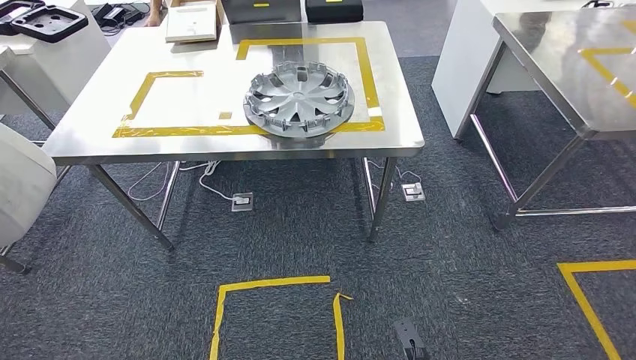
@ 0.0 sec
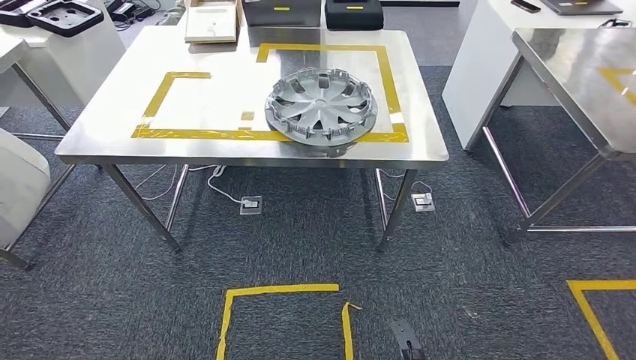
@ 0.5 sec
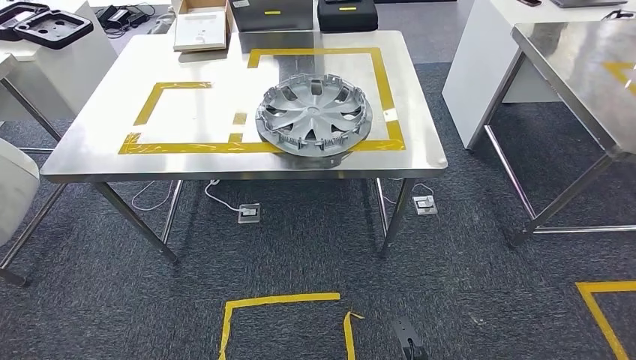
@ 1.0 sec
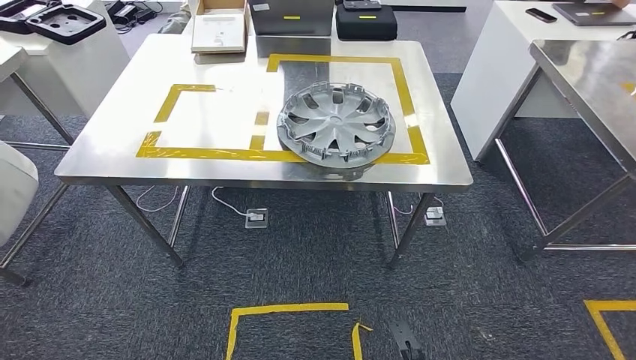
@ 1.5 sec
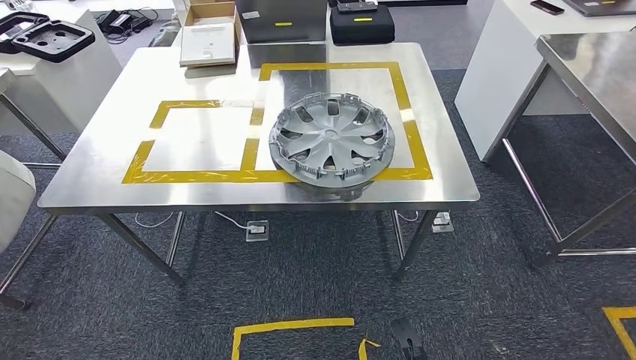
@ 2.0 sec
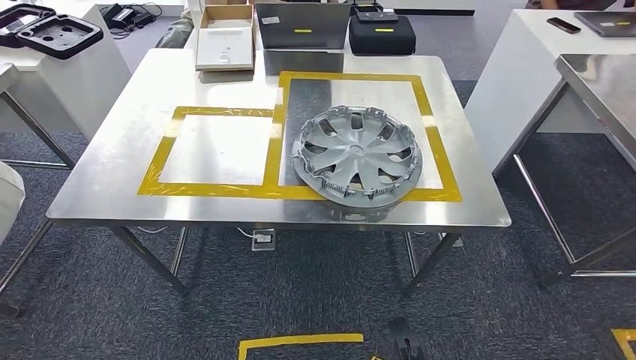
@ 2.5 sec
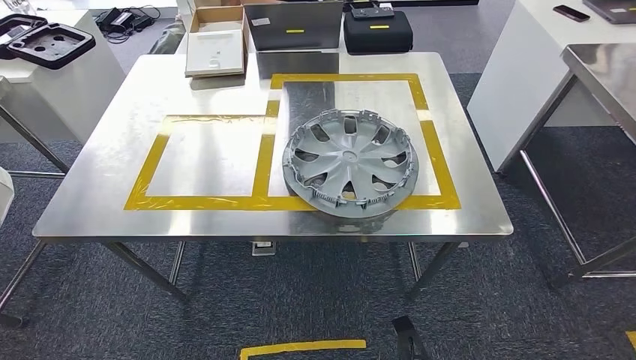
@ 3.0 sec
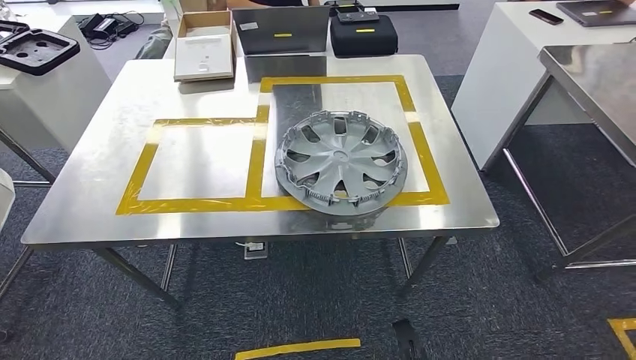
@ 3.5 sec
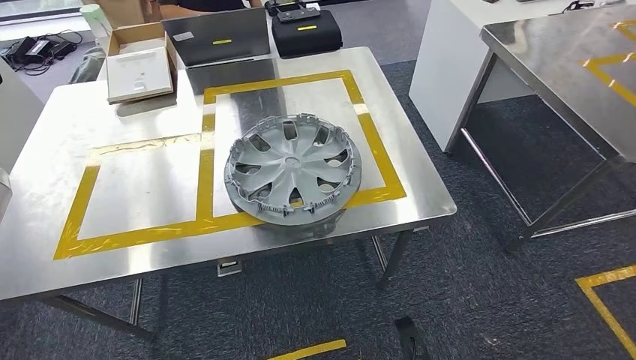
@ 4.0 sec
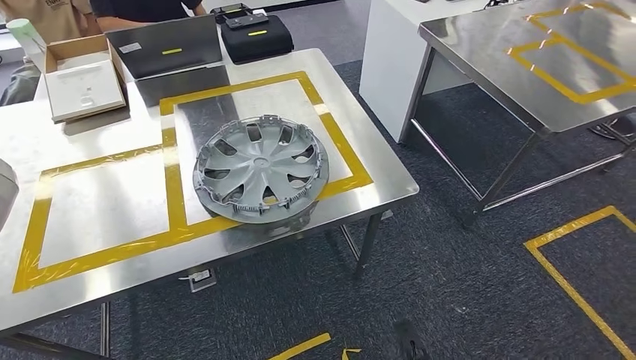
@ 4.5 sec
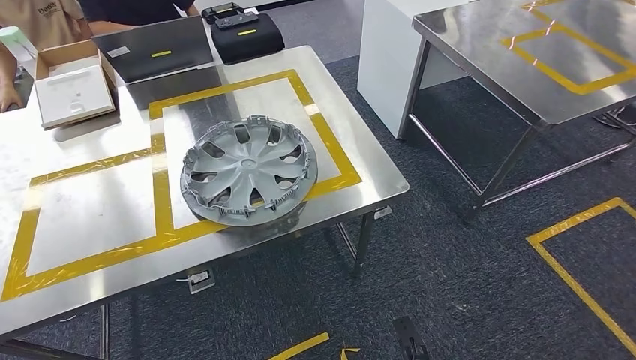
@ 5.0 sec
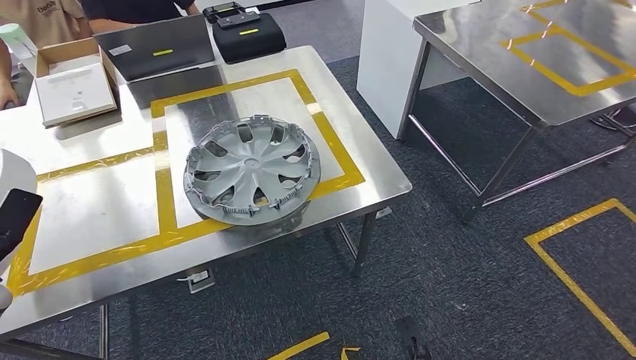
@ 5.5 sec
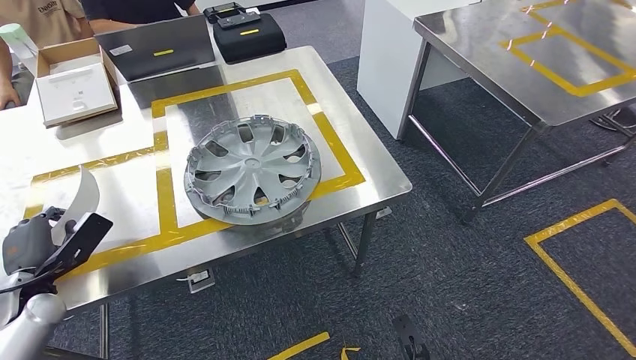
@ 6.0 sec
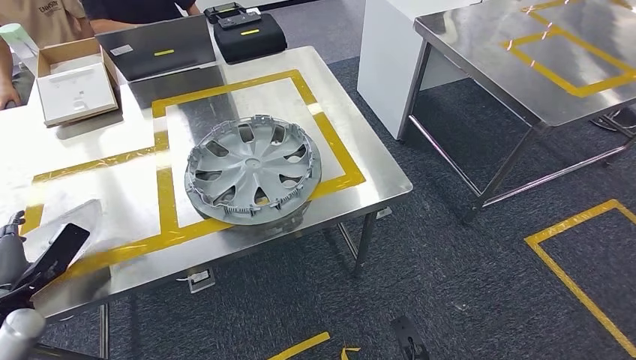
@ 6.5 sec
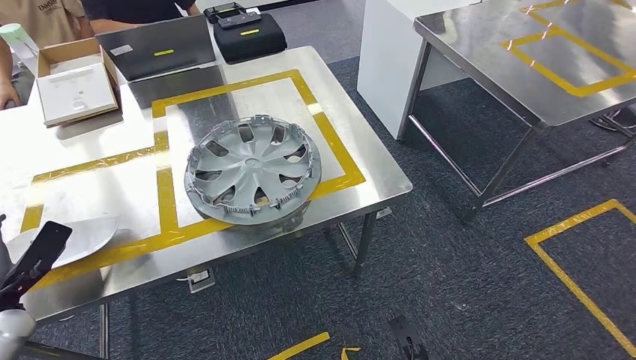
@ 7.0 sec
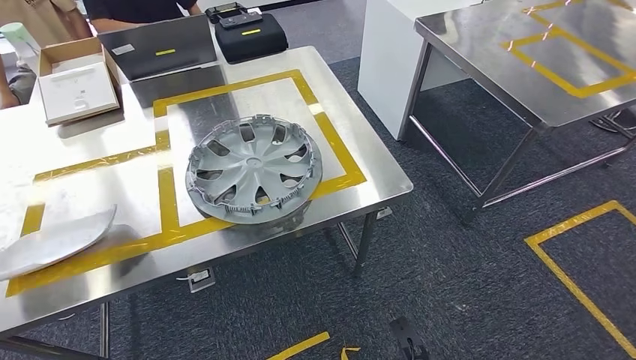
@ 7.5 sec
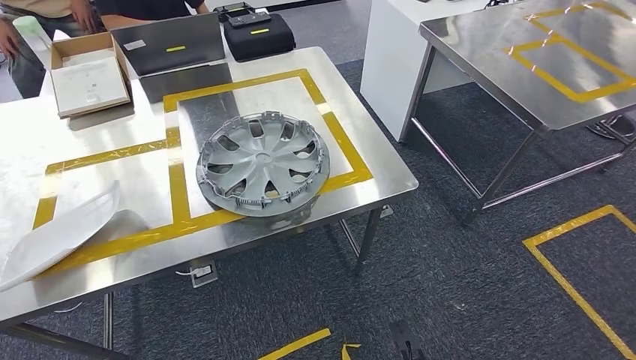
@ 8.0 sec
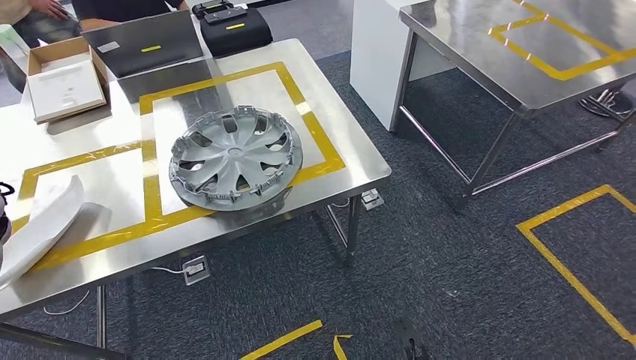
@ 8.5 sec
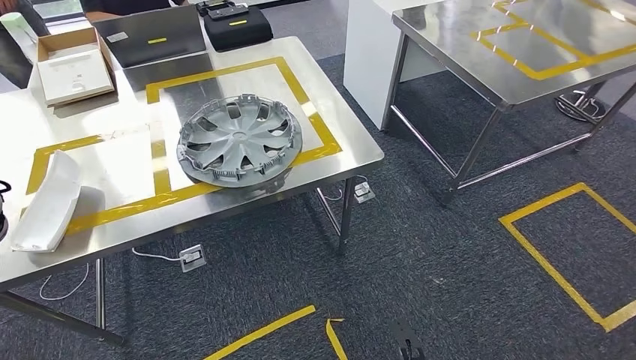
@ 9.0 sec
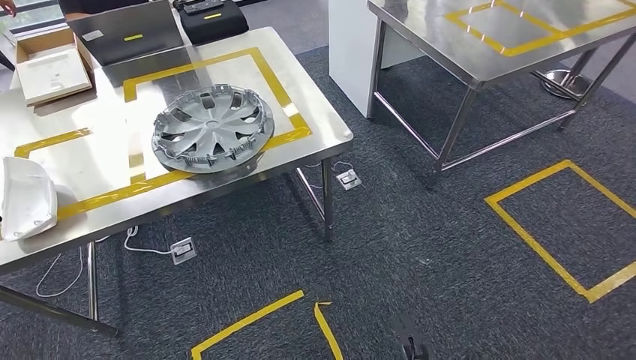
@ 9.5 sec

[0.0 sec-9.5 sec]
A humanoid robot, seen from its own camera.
Step, 0.0 sec to 4.5 sec: Move the small component to the workbench.
Step, 5.0 sec to 7.5 sec: Insert the small component into the corresponding slot on the workbench.
5.5 sec to 7.5 sec: The left hand travels upward by about 10 cm.

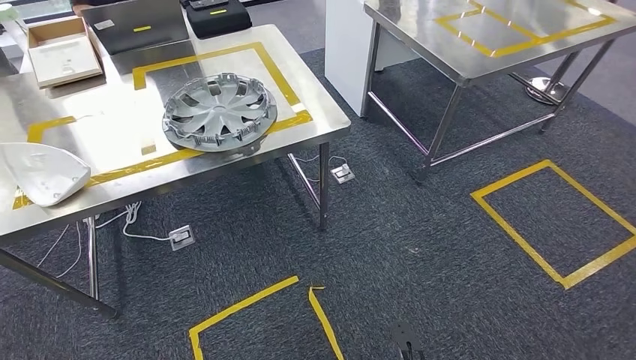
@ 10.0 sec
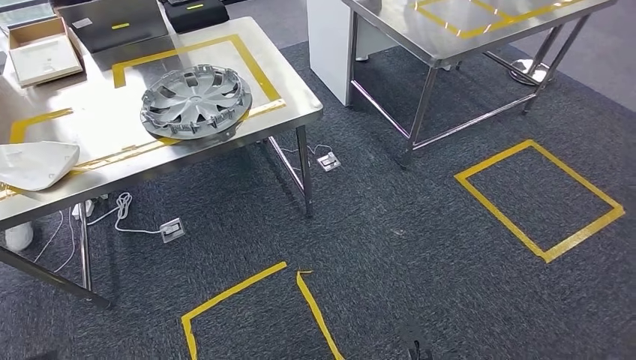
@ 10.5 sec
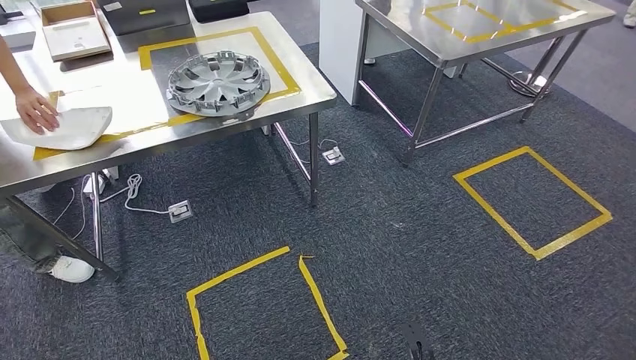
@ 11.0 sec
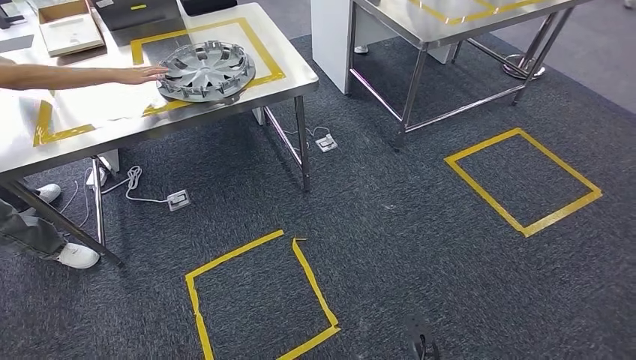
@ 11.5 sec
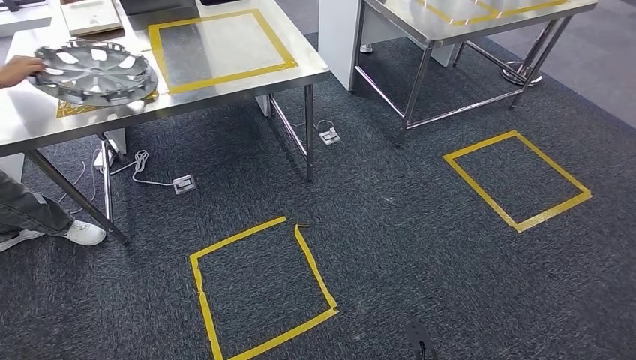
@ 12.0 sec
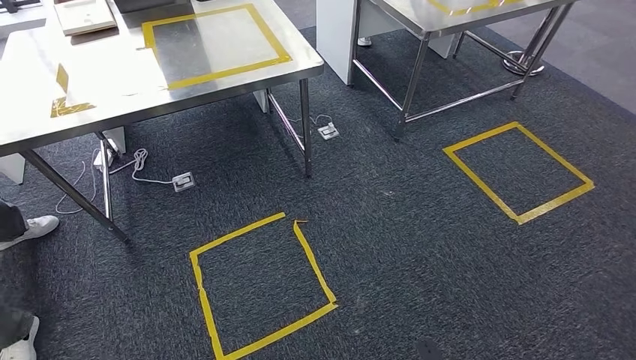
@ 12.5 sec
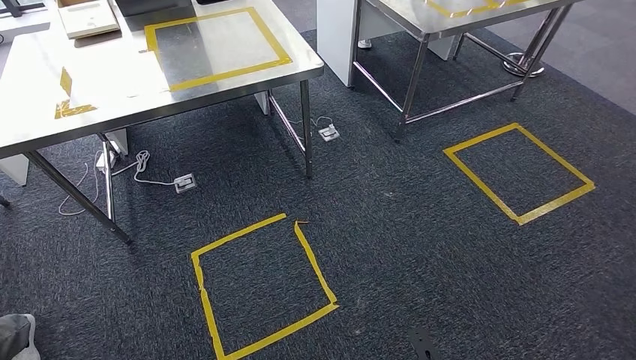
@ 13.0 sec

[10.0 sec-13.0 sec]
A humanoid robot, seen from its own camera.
Step, 10.0 sec to 13.0 sec: Return to the initial position at the workbench.
